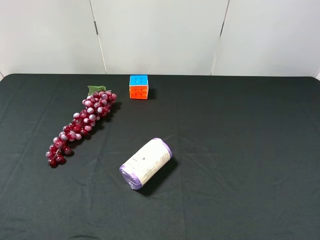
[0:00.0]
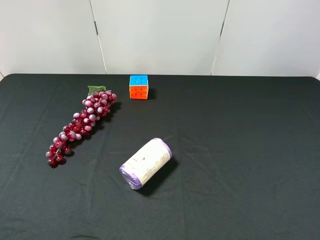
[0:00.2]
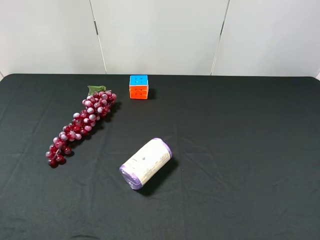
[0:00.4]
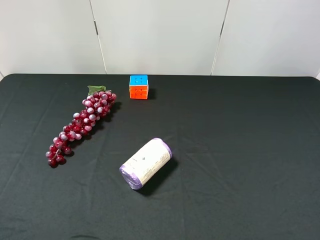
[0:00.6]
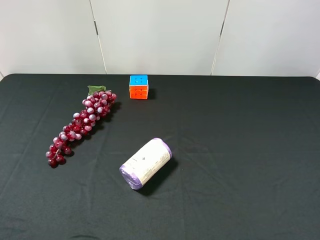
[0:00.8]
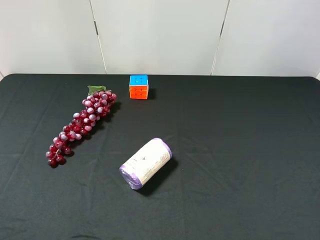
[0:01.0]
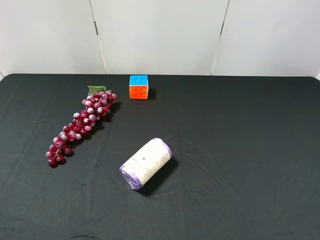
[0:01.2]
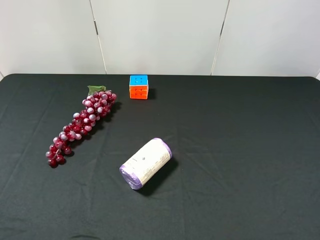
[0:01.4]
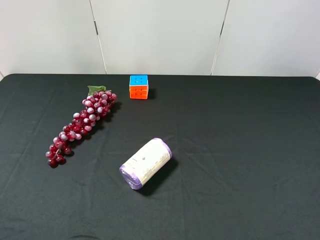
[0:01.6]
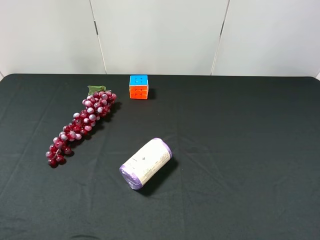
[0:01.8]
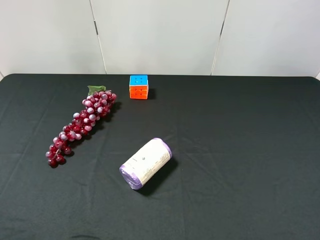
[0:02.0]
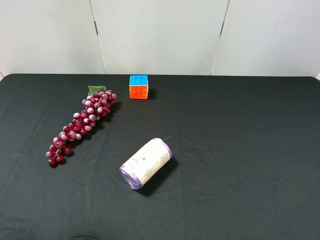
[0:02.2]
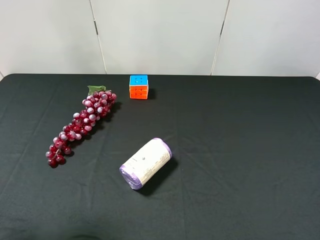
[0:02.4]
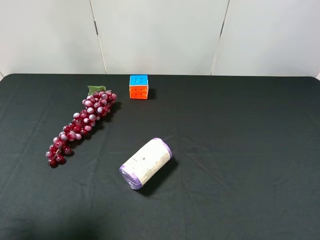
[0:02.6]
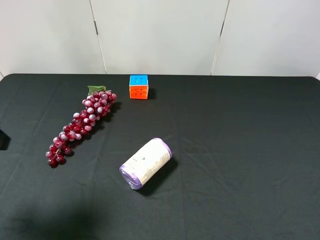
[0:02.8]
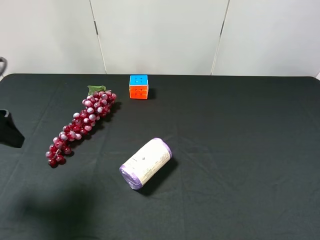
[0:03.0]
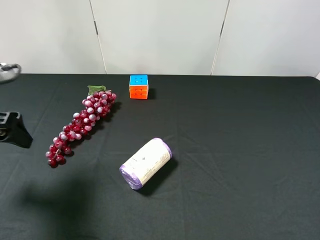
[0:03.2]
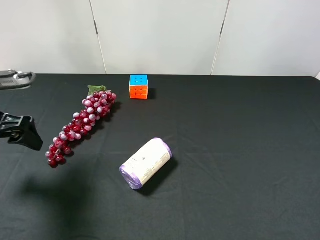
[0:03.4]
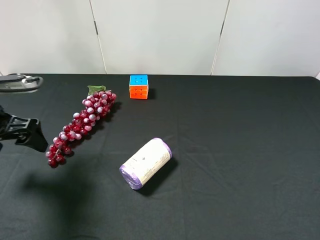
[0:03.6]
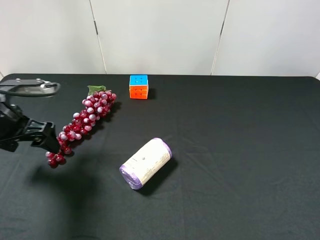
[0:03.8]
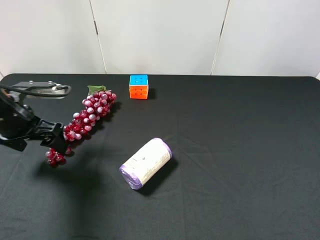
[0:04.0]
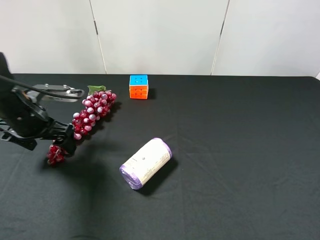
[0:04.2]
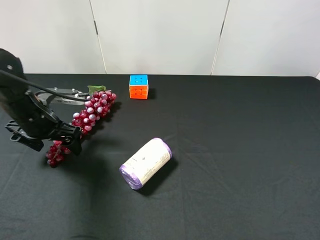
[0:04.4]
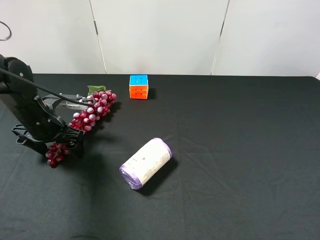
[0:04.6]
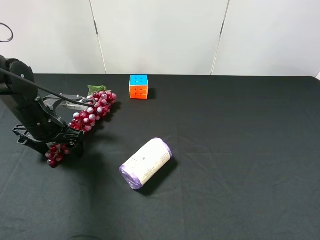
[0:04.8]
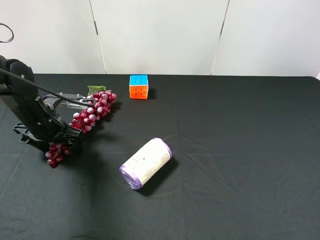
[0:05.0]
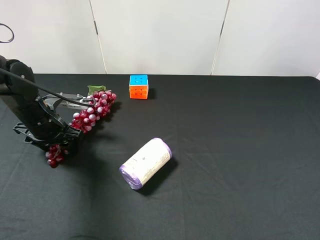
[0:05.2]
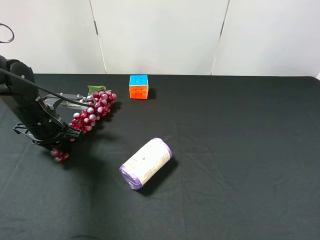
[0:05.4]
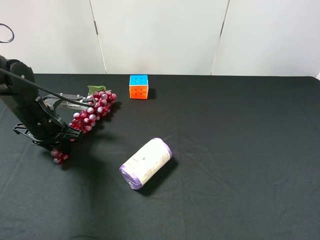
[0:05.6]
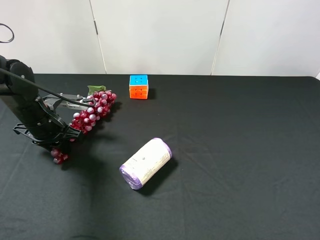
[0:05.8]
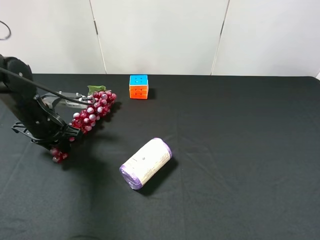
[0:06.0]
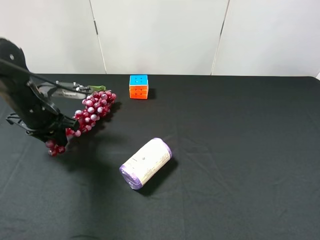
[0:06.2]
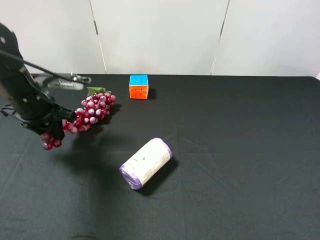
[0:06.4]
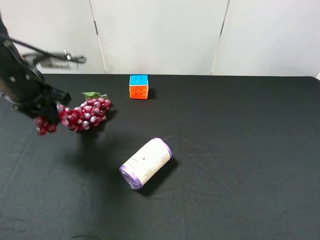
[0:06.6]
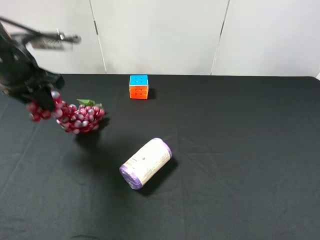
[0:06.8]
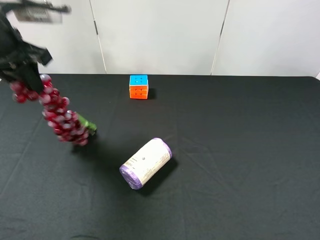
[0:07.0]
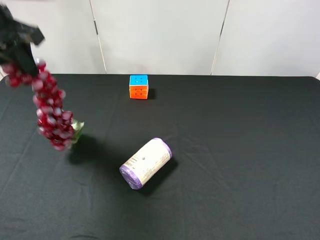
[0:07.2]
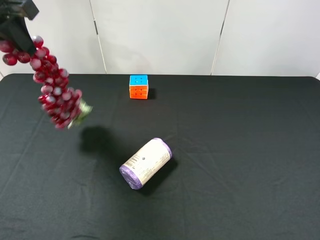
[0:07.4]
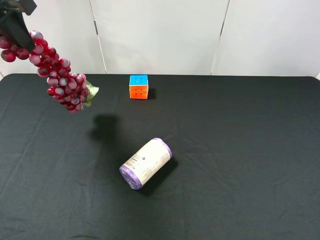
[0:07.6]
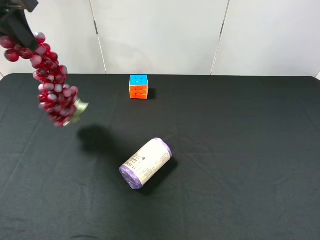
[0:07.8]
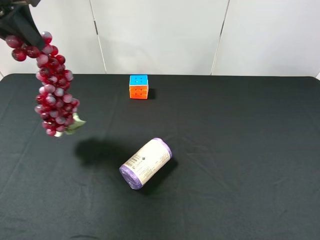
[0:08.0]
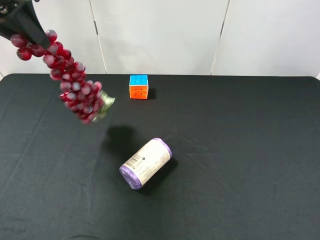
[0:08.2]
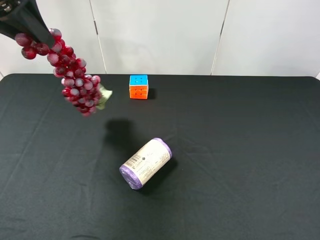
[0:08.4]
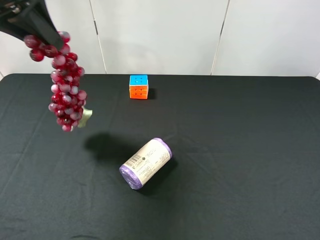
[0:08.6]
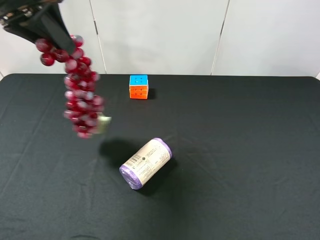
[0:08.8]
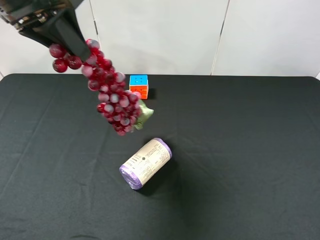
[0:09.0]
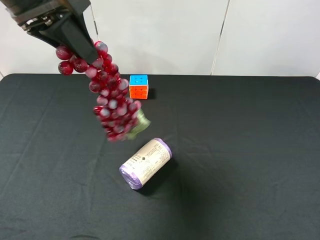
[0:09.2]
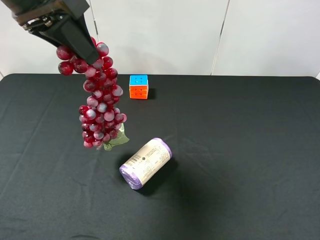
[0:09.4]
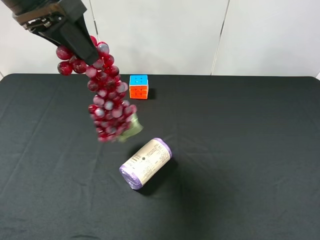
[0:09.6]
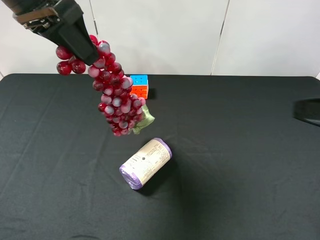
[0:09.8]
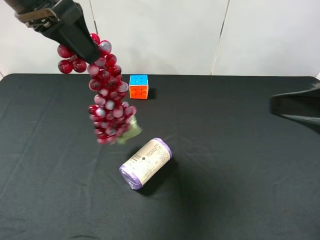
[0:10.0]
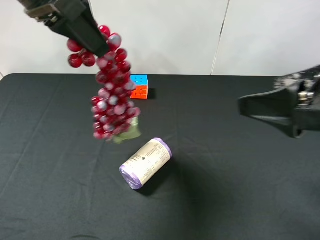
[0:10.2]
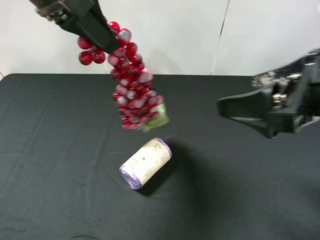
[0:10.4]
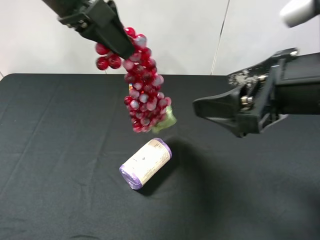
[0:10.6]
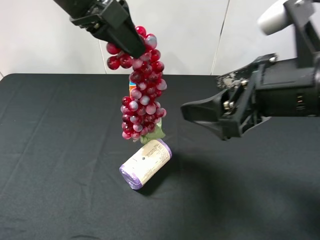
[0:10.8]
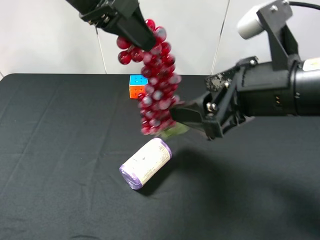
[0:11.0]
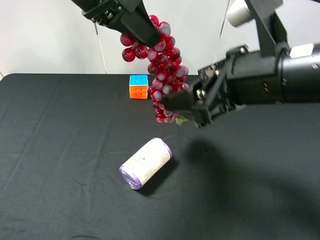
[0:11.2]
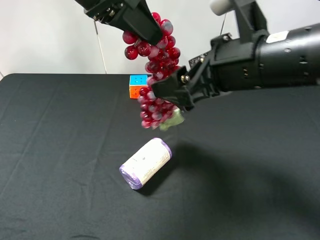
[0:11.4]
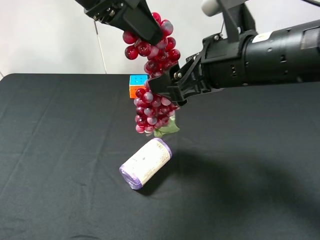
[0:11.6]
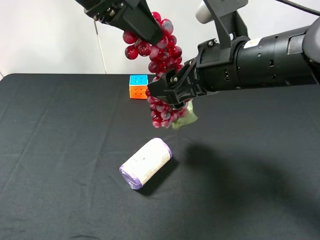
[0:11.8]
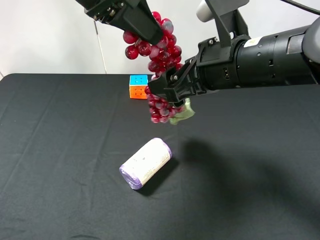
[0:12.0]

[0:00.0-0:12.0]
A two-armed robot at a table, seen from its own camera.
Task of the whole recording: use the left gripper to pick up the item and transfer it from the left gripper to the right gripper.
0:00.0 to 0:01.6: The two grippers keep their place.
0:01.6 to 0:03.0: The left gripper is displaced forward by approximately 15 cm.
0:03.0 to 0:04.4: The left gripper heads downward, forward and to the right, covering some 15 cm.
0:04.4 to 0:06.0: The left gripper closes its fingers.
0:06.0 to 0:07.6: The left gripper shifts about 25 cm upward.
0:07.6 to 0:09.0: The left gripper heads to the right, covering about 10 cm.
0:09.0 to 0:10.4: The right gripper heads forward and to the left, covering roughly 15 cm.
0:10.4 to 0:12.0: The right gripper is displaced to the left and forward by approximately 10 cm.

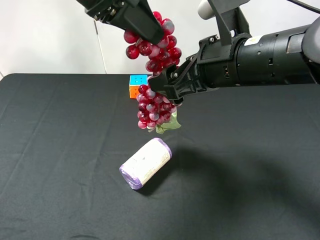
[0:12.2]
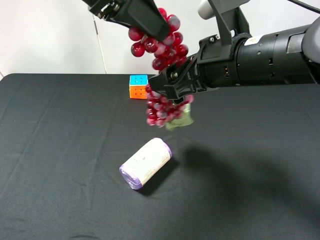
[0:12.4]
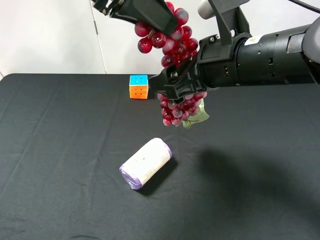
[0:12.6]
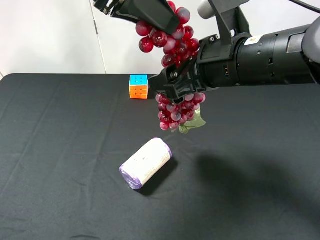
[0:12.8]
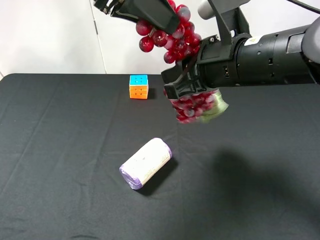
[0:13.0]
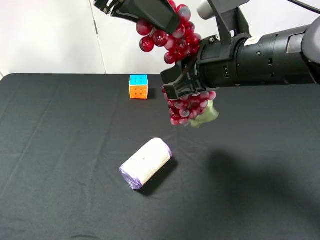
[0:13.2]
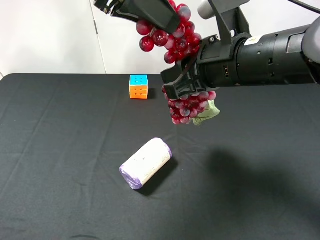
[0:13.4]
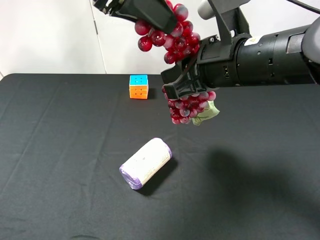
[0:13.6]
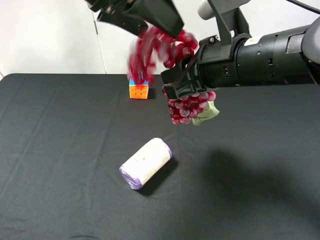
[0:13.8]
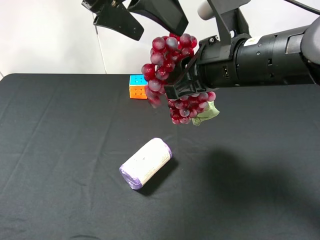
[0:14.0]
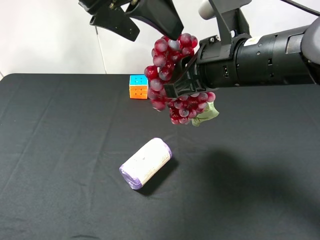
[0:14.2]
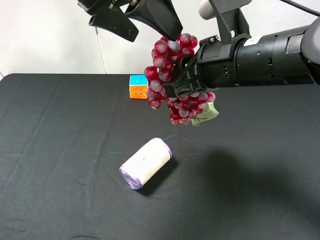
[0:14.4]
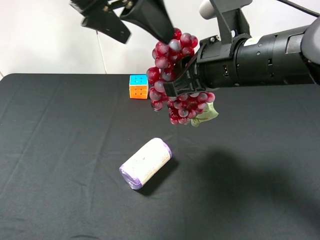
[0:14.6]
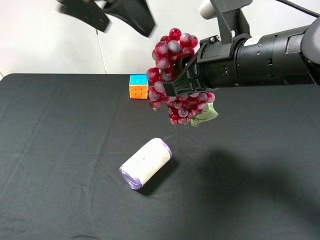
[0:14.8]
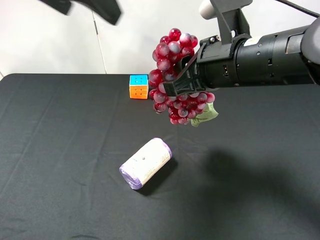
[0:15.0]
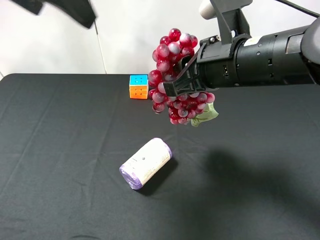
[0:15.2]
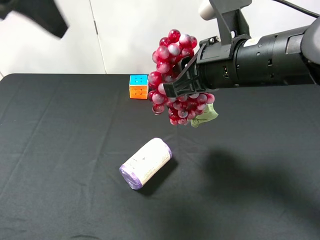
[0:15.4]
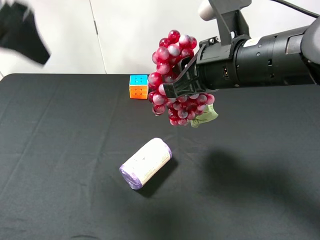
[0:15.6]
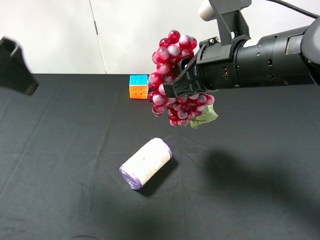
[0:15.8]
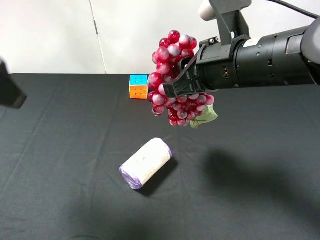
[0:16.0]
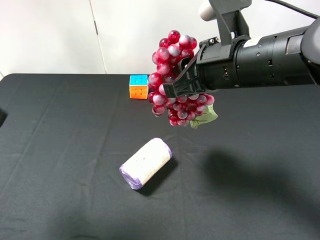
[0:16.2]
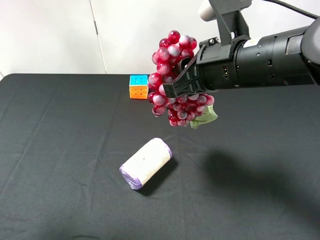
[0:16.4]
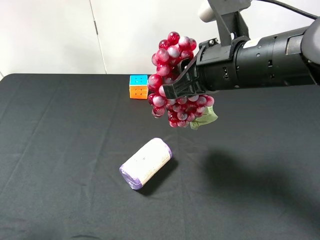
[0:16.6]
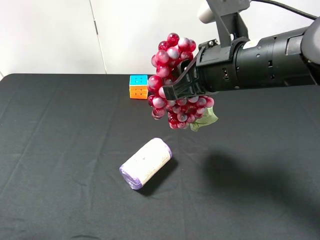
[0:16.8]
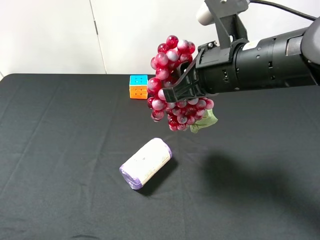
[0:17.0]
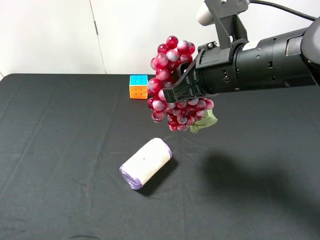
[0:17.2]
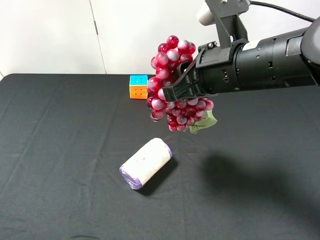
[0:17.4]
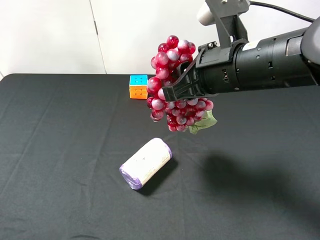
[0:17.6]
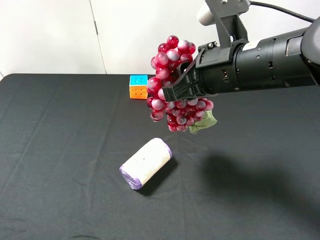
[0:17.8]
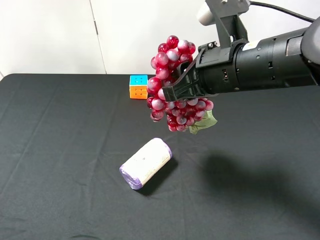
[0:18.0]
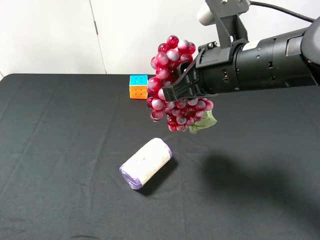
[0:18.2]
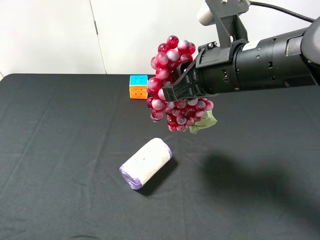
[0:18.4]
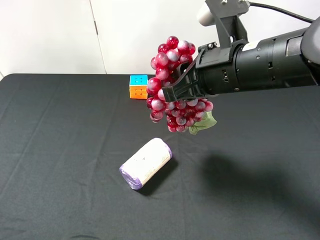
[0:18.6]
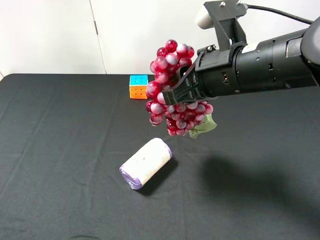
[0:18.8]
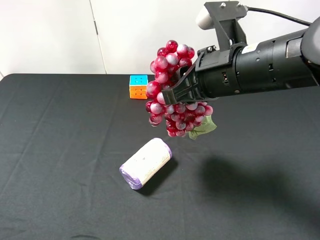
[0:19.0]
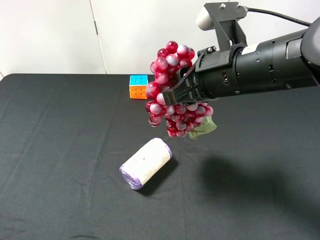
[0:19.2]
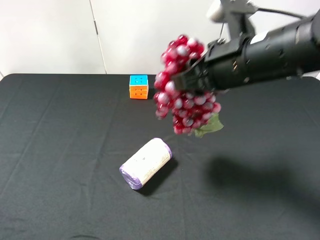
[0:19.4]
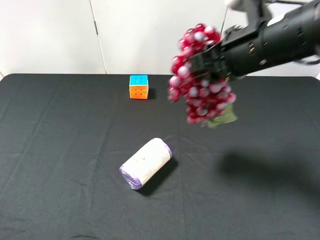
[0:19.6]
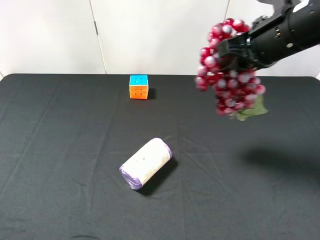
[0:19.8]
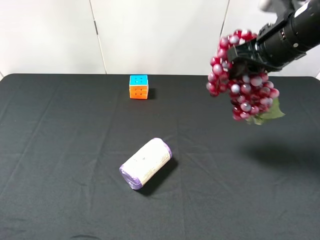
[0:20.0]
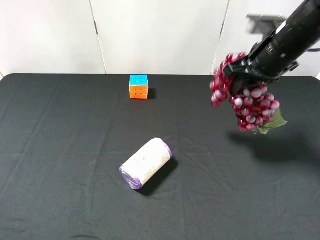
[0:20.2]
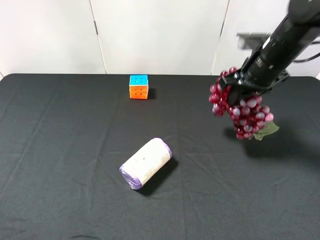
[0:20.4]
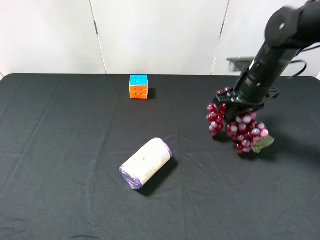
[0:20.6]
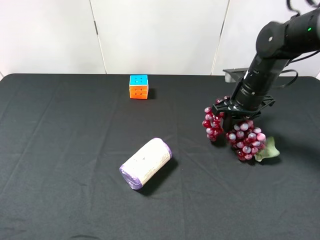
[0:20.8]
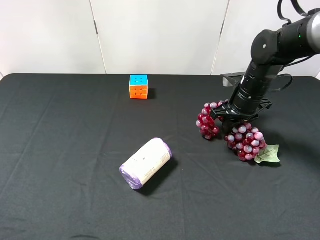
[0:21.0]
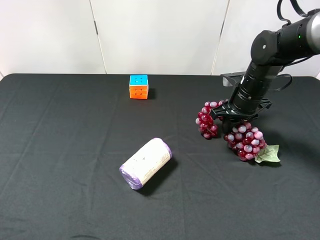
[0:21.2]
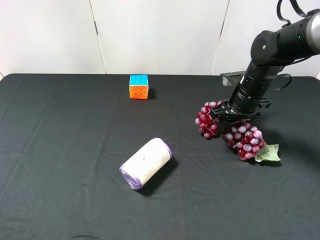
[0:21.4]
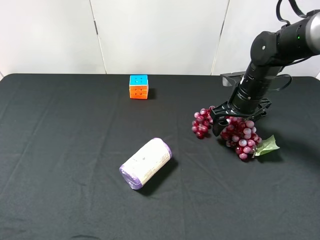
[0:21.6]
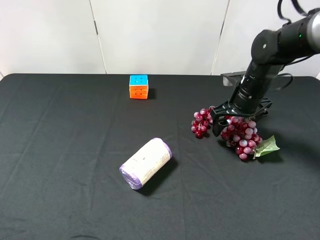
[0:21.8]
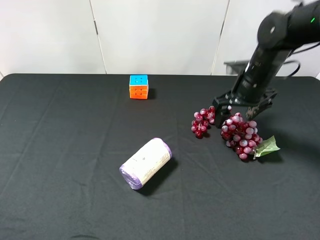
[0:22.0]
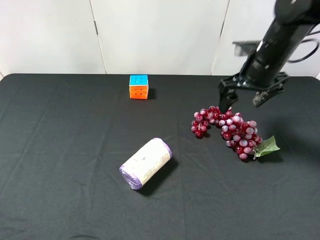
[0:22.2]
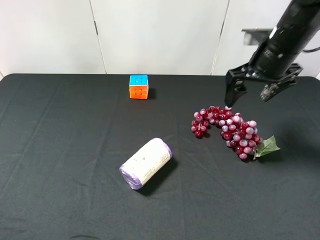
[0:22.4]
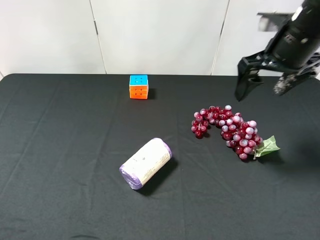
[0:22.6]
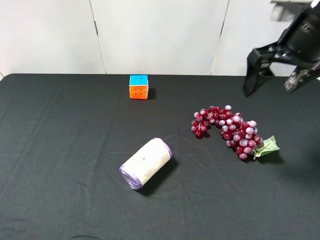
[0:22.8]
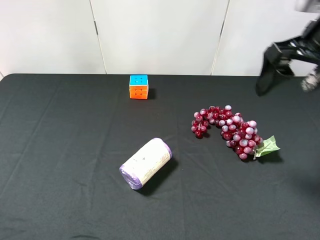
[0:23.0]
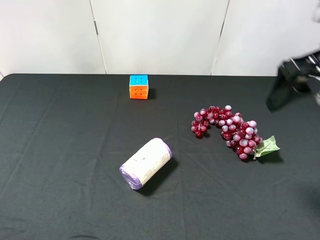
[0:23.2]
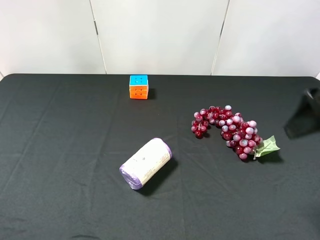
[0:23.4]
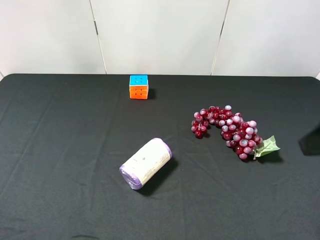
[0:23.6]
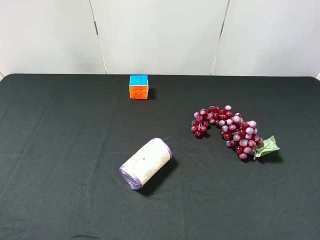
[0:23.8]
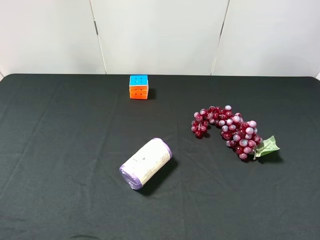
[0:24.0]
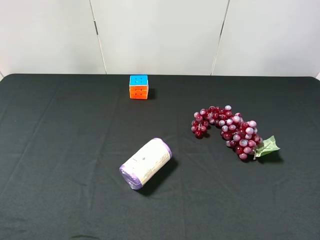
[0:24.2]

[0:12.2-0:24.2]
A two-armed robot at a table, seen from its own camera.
Task of the whole recording: use the left gripper to pick up the item and transfer it from the left gripper to the right gripper.
0:12.2 to 0:13.8: The right gripper closes; the left gripper opens up.
0:13.8 to 0:15.2: The left gripper goes roughly 10 cm to the left.
0:15.2 to 0:16.6: The left gripper goes roughly 25 cm backward, to the left and downward.
0:16.6 to 0:18.2: The left gripper shifts approximately 5 cm backward.
0:18.2 to 0:19.8: The right gripper goes about 10 cm to the right and forward.
0:19.8 to 0:21.2: The right gripper travels downward and forward by roughly 15 cm.
0:21.2 to 0:22.6: The right gripper moves upward, some 15 cm, and opens up.
0:22.6 to 0:24.2: The right gripper is displaced backward by approximately 30 cm.
